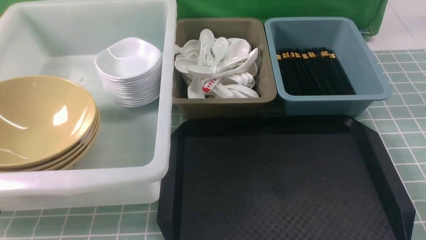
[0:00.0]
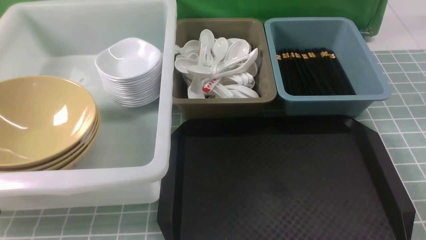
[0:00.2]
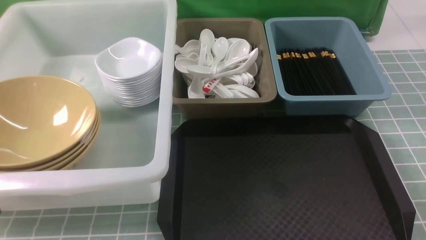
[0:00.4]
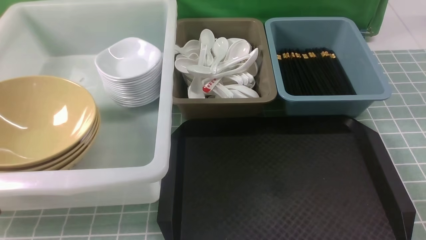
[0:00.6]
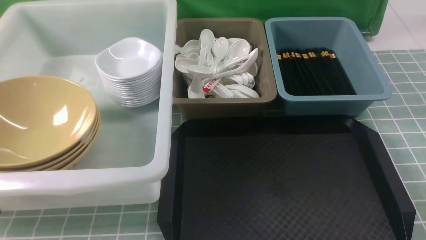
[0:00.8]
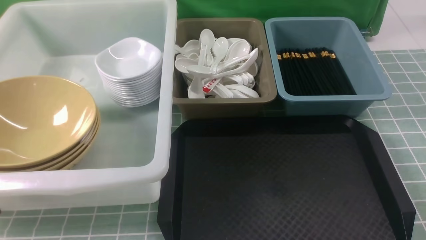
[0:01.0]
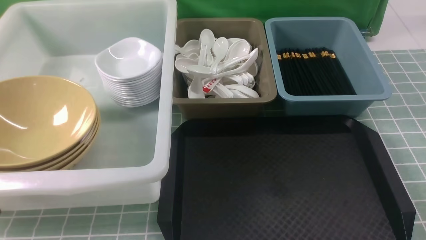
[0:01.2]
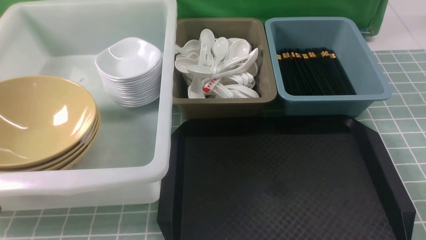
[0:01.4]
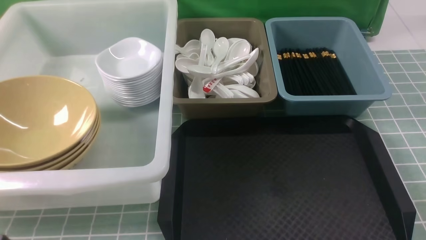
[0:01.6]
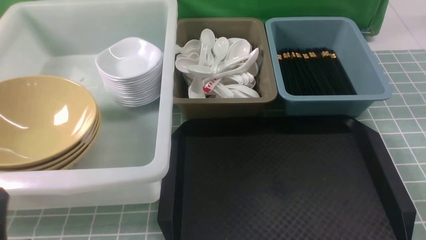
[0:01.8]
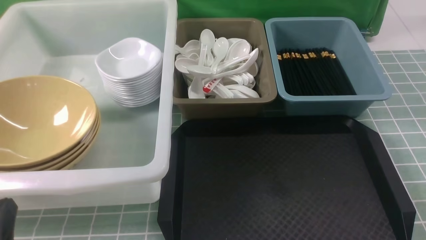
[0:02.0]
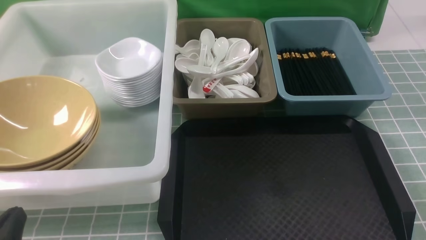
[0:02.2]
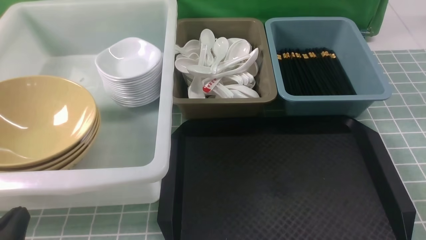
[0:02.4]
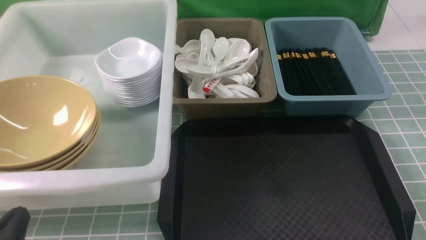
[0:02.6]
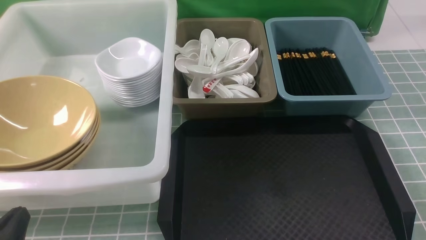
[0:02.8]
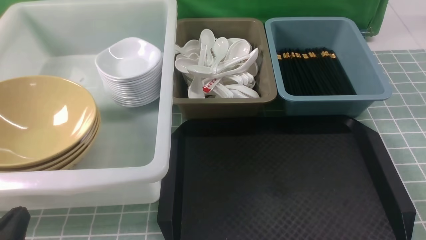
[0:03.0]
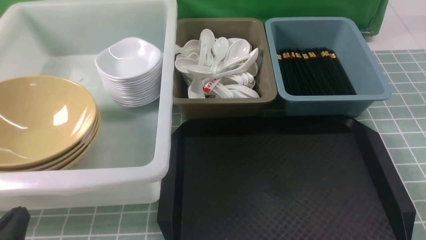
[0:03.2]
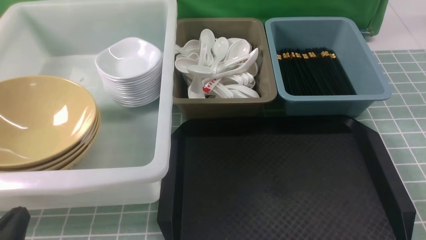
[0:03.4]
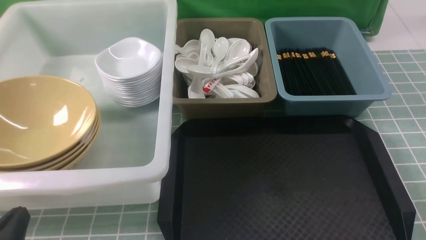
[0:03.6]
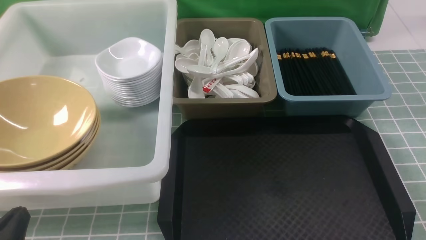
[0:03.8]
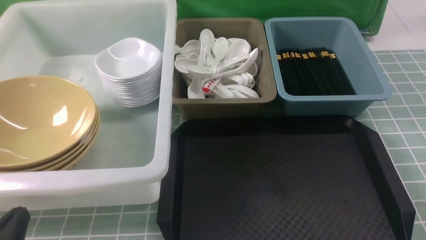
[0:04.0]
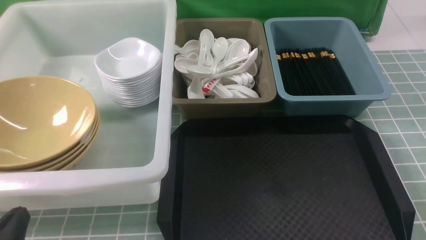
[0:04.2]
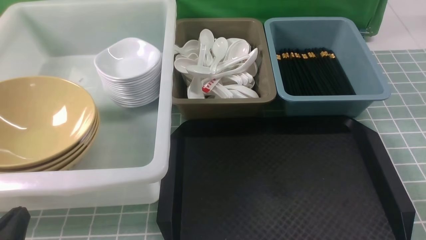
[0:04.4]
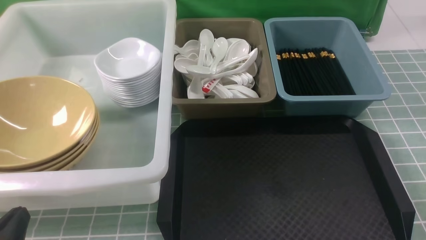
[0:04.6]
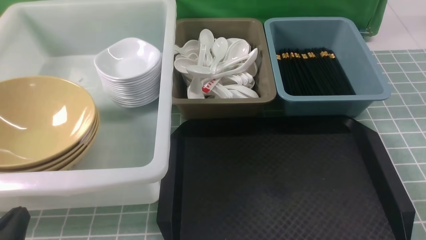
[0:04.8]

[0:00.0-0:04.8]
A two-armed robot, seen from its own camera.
Task of the whole recording: on blue table put chopsticks spoon bowls plates into blue grey white boxes.
0:01.6 to 0:03.2: The left gripper is displaced downward by some 10 cm.
0:03.2 to 0:04.8: Both grippers stay put.
